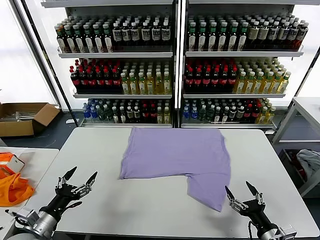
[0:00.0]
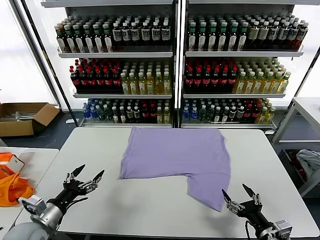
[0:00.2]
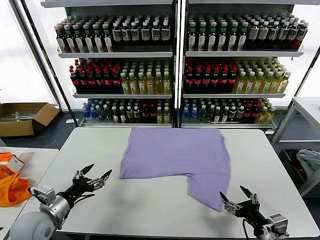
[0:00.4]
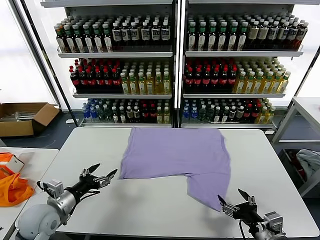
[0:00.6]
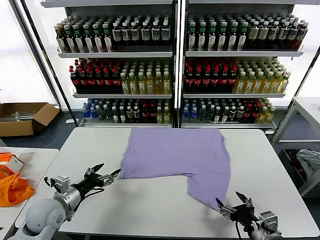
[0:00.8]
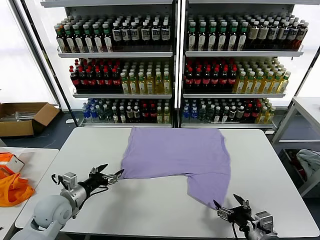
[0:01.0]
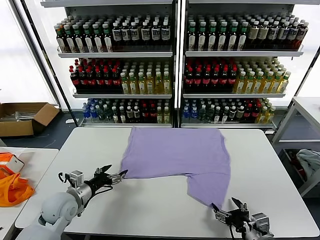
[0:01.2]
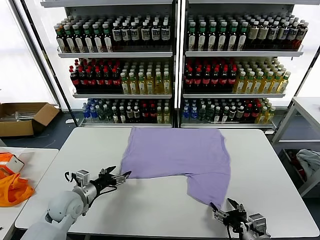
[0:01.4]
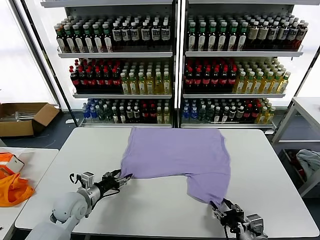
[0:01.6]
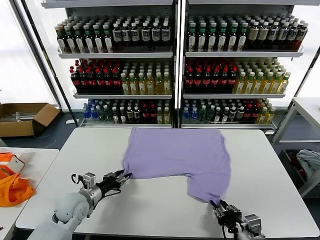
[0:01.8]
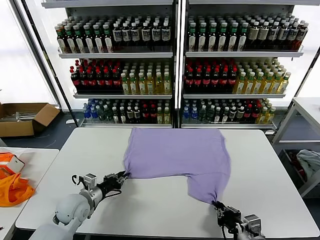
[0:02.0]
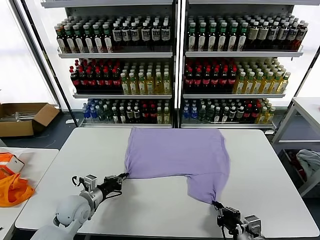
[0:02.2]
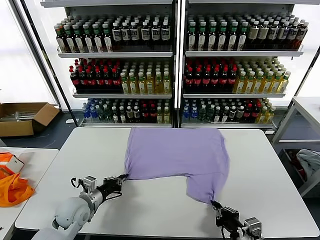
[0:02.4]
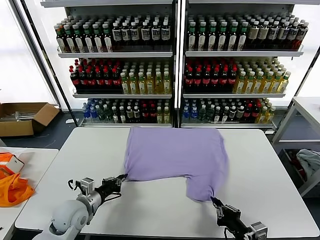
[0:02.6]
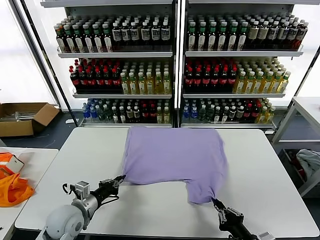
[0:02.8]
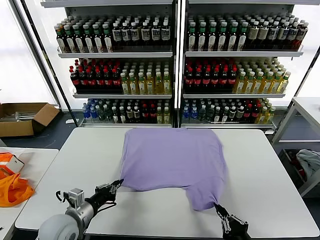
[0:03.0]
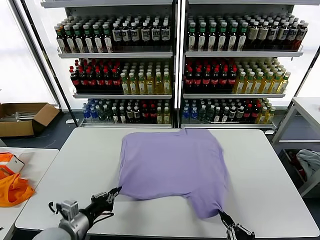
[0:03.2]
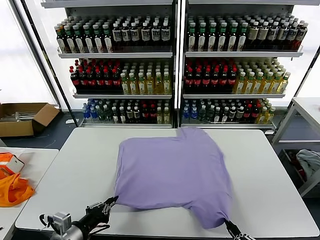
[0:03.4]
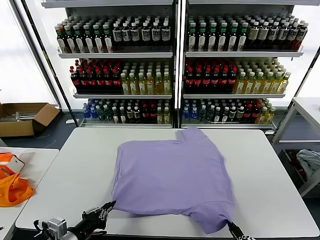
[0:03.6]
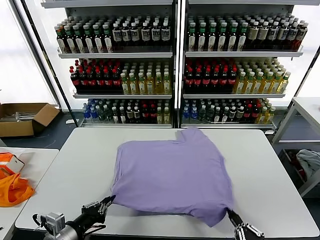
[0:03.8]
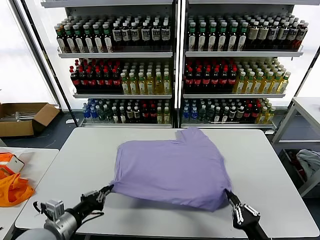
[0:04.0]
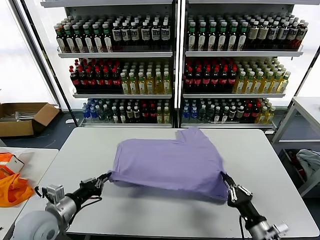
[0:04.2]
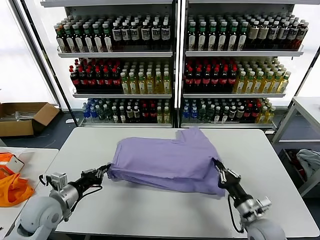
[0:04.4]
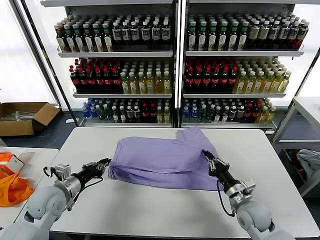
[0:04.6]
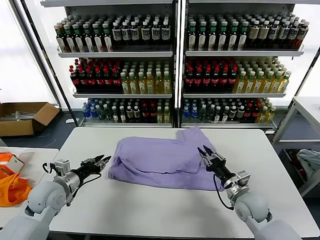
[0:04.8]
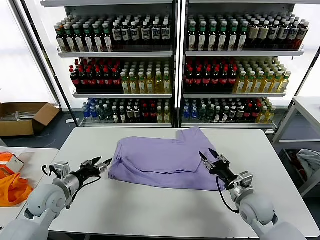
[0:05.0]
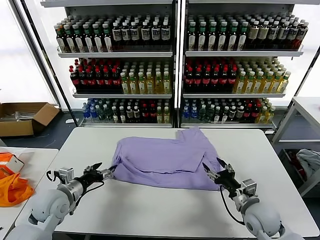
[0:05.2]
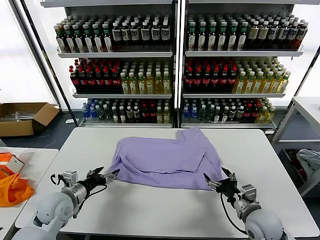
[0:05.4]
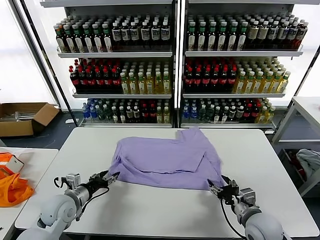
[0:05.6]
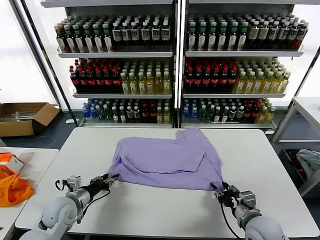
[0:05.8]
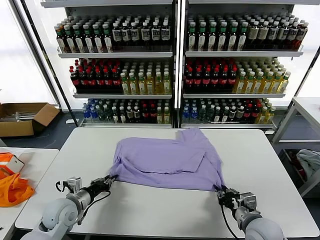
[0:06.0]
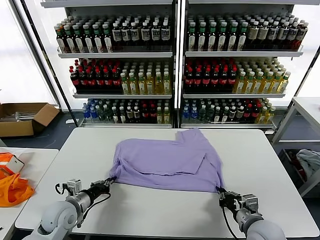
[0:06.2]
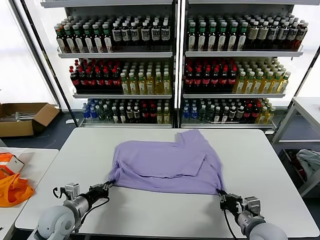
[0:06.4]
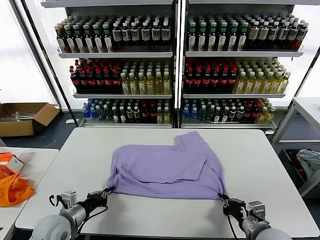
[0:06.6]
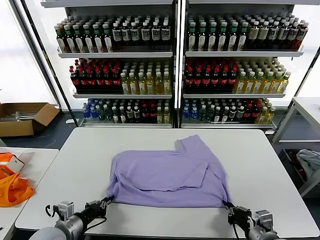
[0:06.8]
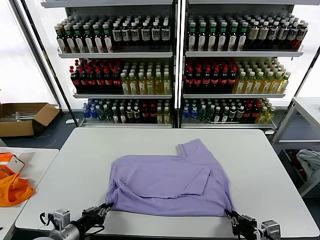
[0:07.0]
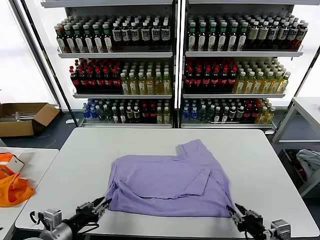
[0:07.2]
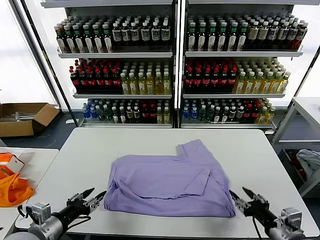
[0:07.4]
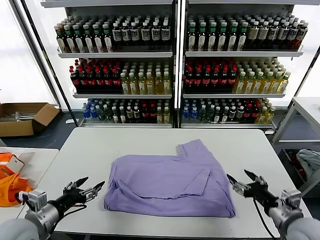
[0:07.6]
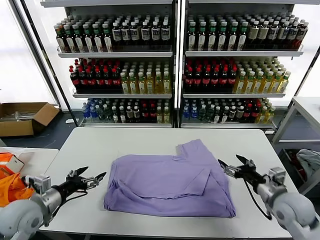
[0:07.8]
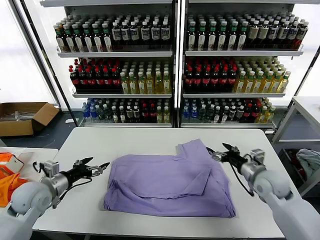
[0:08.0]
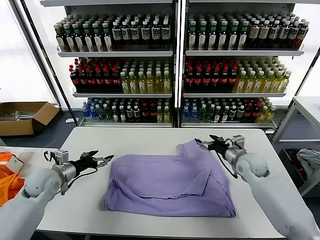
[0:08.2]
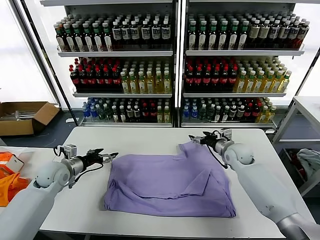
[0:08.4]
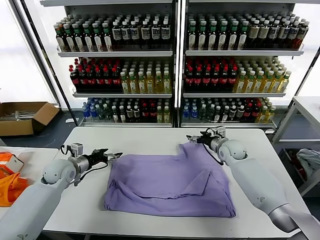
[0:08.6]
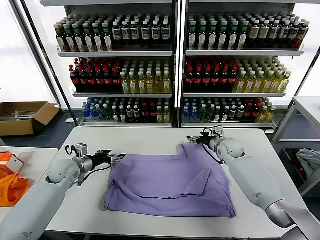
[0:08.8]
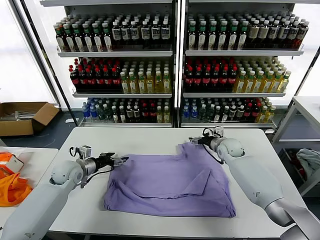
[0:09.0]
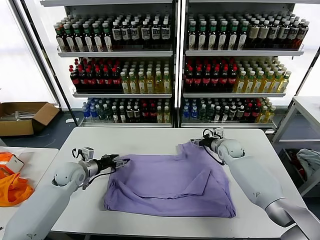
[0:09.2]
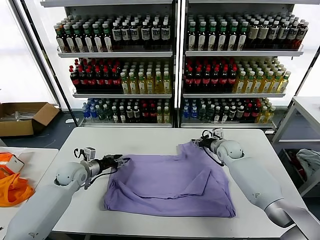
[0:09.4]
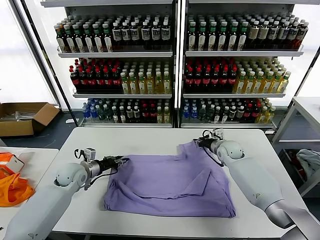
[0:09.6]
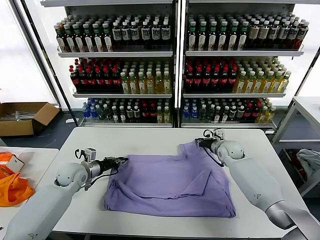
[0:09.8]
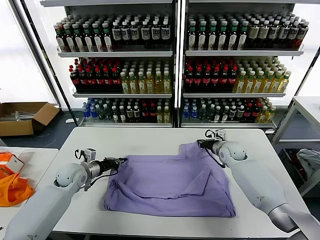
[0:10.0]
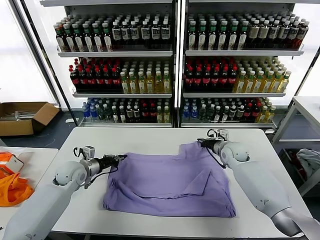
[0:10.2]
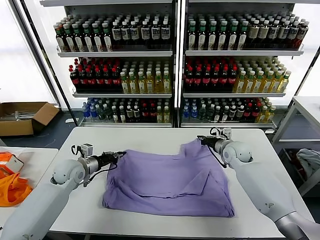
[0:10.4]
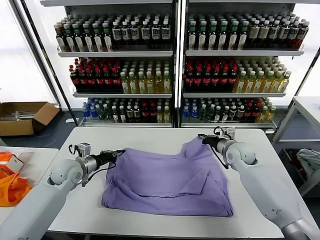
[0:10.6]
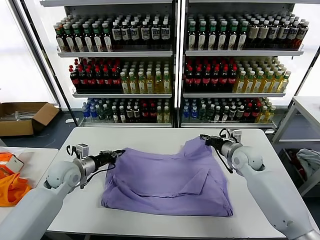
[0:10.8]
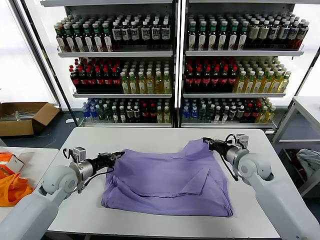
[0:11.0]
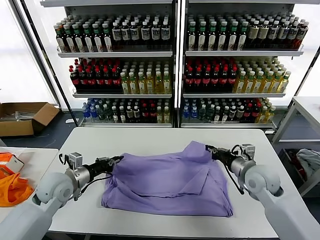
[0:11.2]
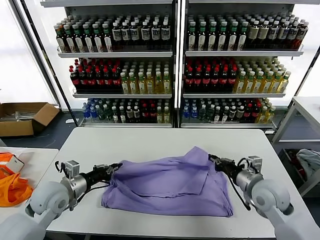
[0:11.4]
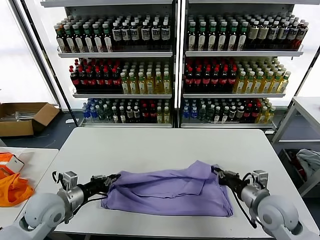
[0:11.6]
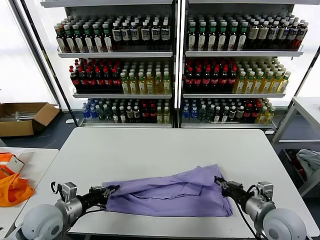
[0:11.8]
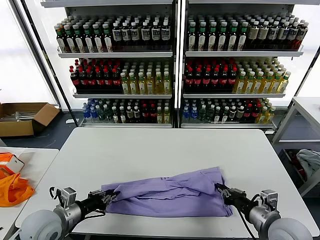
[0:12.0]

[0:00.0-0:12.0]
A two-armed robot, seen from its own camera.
Task of the whole recording: fold and organize the clothes.
Step, 0.0 to 2.2 s: use both grippers simultaneously to clamp the lower edge of the clothing fabric.
Step, 2.4 to 4.8 s: use both grippers to drag the lower edge of the fabric forward and fold it over the upper edge.
Step, 5.2 to 7.0 s: Drag the clothes downward with both gripper.
Step, 7.4 to 9.8 s: use both grippers simultaneously to clamp the upper edge of the clothing fabric.
1.6 to 3.0 s: Both grippers travel together backward, approximately 10 cm. The right gripper closes. The left gripper closes.
3.0 to 4.4 s: The right gripper goes roughly 20 cm forward. Meanwhile the left gripper travels forward by approximately 5 cm.
4.4 to 6.0 s: The left gripper shifts some 5 cm downward, and opens, then closes again, while the right gripper goes forward and returns, approximately 5 cm each way, and opens, then closes once more.
6.0 to 7.6 s: The right gripper moves to the right and upward, approximately 10 cm, goes backward and returns, about 10 cm each way, and opens. The left gripper is displaced upward and backward by approximately 15 cm, and opens its fingers.
7.6 to 9.0 s: Both grippers move forward, approximately 25 cm.
9.0 to 10.4 s: The right gripper closes its fingers; the left gripper closes.
10.4 to 12.0 s: The right gripper shifts roughly 30 cm backward. The left gripper moves backward, roughly 20 cm.

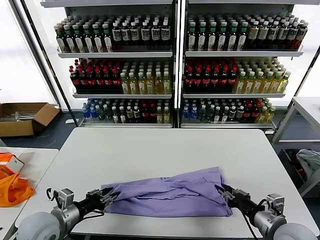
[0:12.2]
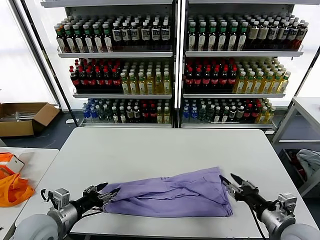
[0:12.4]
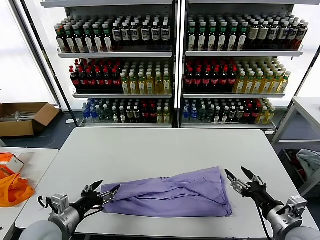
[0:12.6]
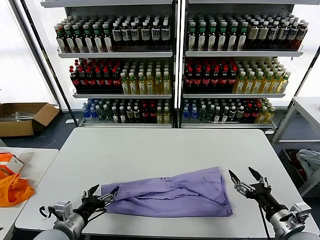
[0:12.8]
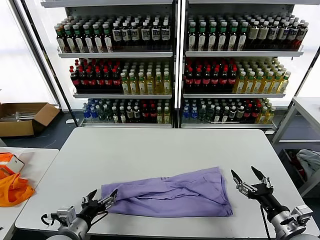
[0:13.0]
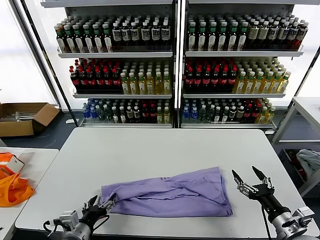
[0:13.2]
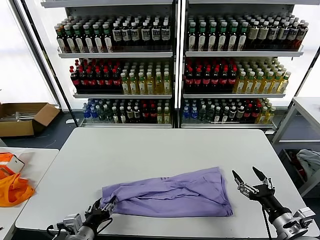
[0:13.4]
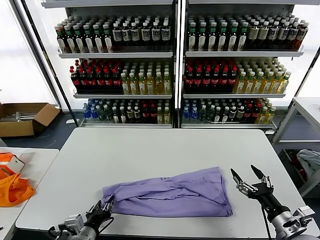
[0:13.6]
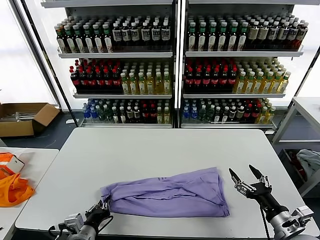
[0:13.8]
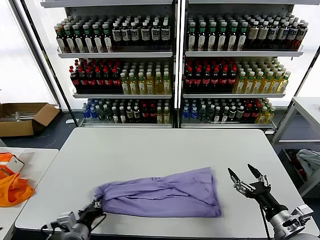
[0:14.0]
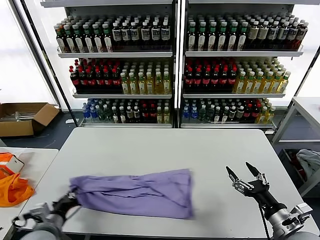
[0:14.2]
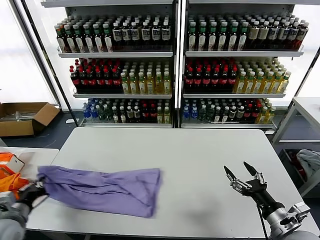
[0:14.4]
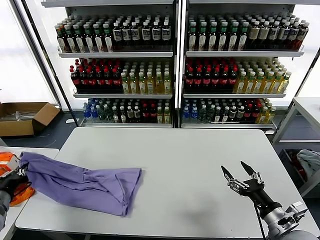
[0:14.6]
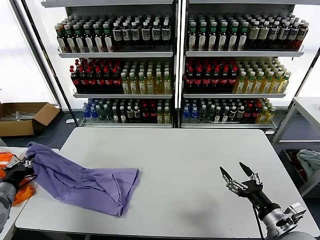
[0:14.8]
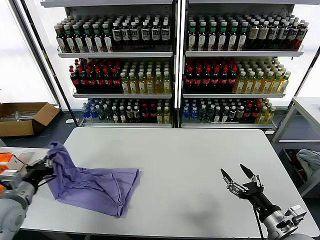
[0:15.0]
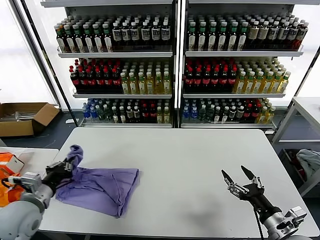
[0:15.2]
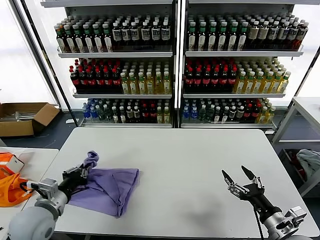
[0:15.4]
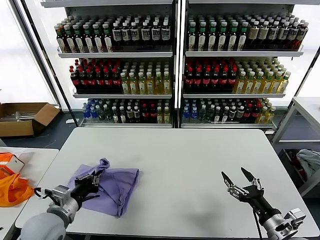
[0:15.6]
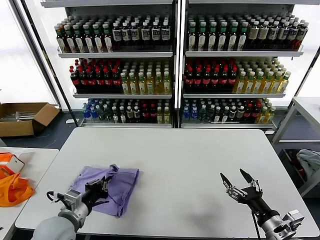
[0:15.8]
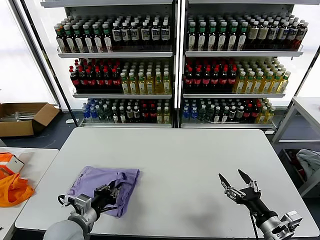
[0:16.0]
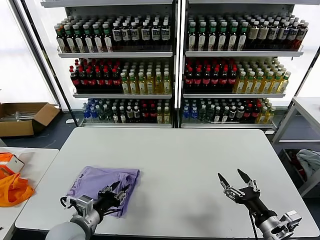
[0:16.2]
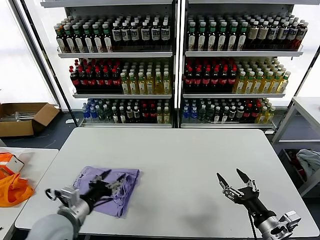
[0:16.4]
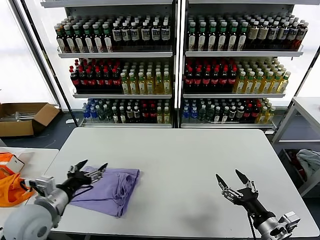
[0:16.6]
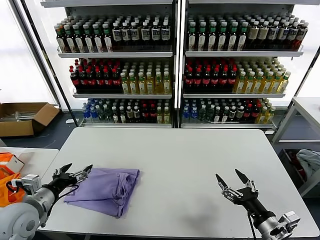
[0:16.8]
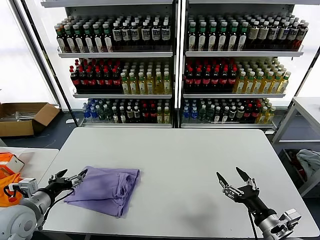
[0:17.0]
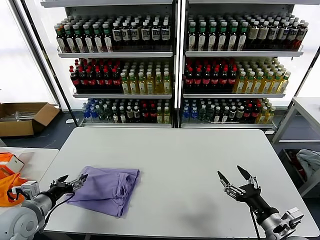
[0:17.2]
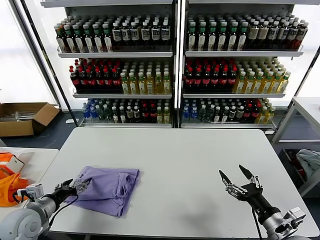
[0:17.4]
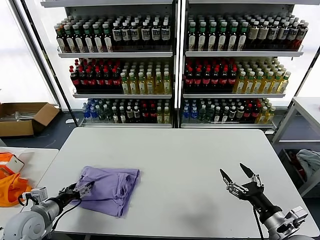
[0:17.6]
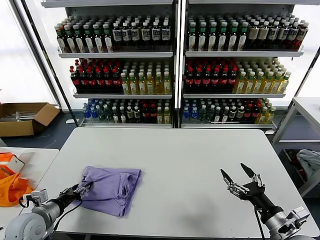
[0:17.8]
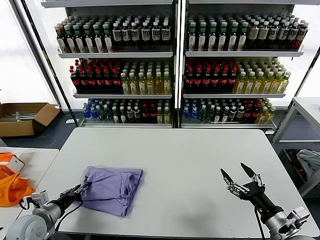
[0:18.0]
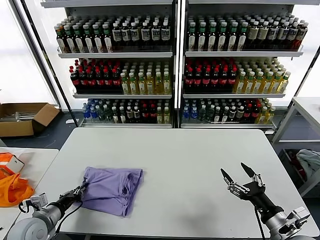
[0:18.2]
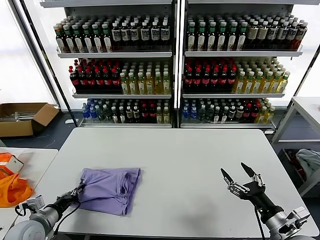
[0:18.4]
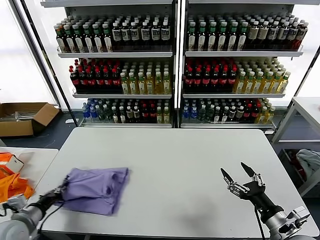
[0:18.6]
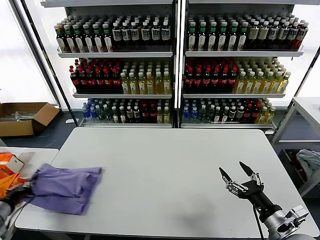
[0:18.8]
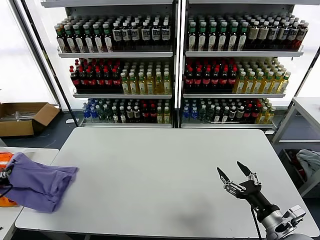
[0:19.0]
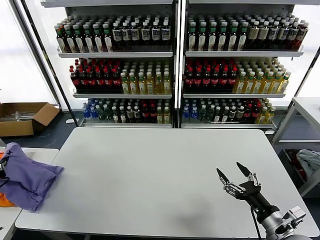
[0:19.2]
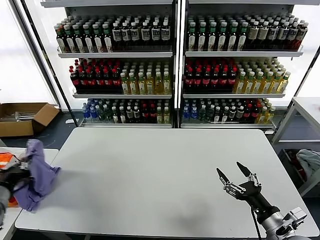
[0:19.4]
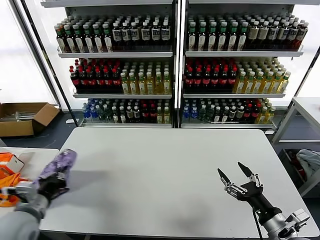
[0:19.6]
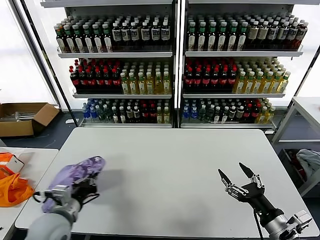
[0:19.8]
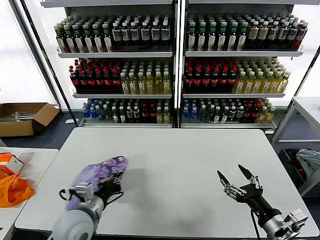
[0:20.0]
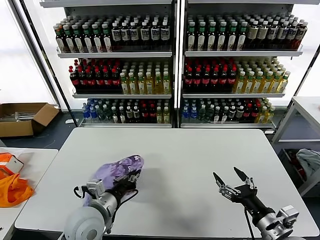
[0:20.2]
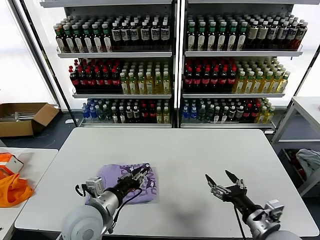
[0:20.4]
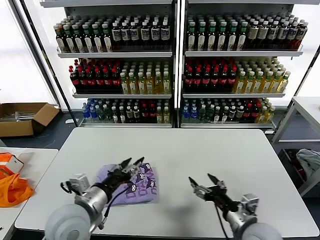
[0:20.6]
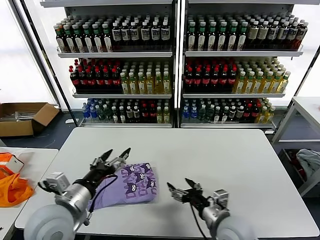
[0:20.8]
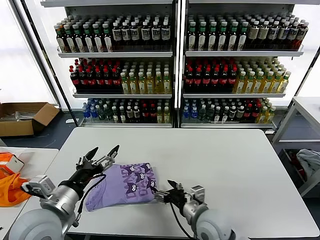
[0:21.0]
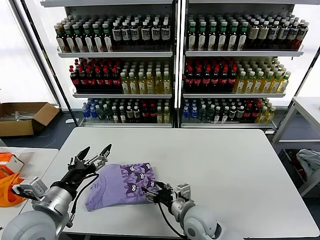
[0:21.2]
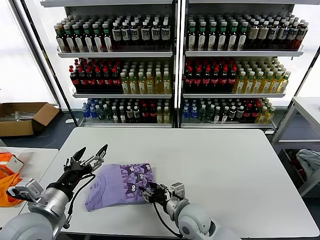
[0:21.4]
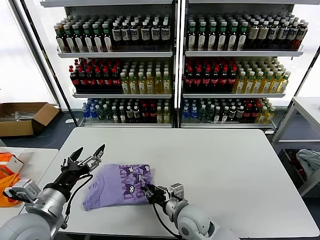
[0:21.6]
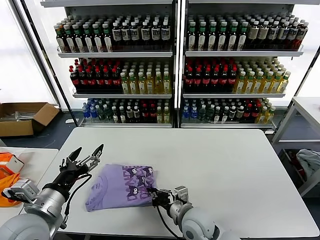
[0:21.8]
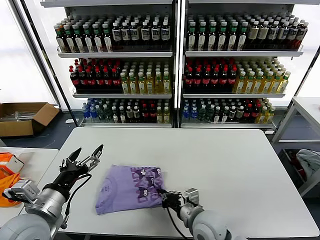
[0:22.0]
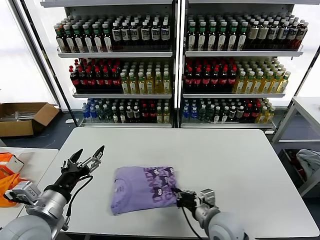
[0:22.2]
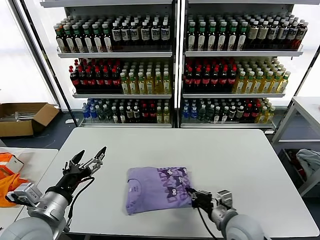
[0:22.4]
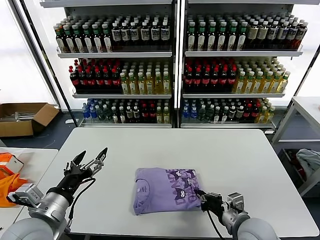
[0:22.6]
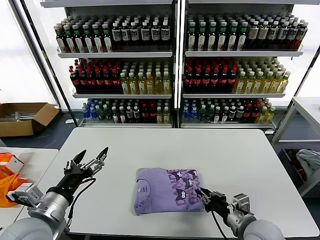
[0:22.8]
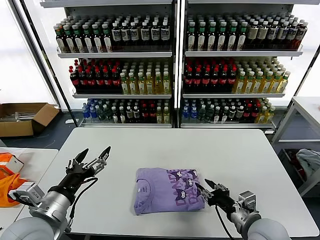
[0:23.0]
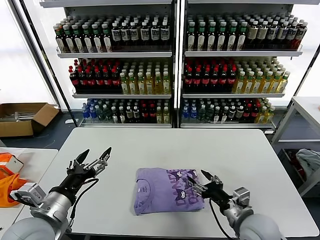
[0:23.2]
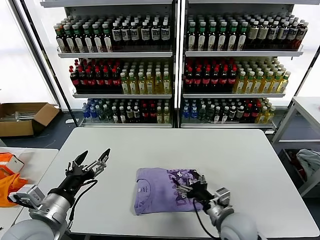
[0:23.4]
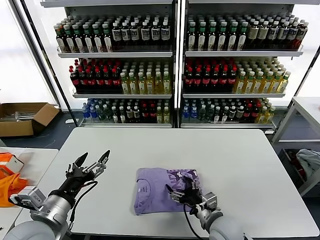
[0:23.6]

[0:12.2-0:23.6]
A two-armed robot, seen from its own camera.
Task of the whole recording: fold and organize the clothes.
Step, 12.4 to 13.8 s: use the left gripper to clamp the left edge of the fabric.
Step, 14.0 to 16.2 s: use the left gripper to drag the left edge of the fabric to the left and folds it over the right edge.
Step, 16.4 to 20.4 s: Flip the folded clothes over with left gripper.
Step, 20.6 to 22.8 s: Drag the clothes to the center of the table.
12.2 to 13.6 s: The left gripper moves to the right, backward and downward, some 10 cm, and opens, then closes again. Meanwhile the right gripper moves roughly 5 cm, and opens up.
13.6 to 15.0 s: The left gripper shifts roughly 20 cm to the left, upward and forward, and closes.
15.0 to 16.4 s: The left gripper travels to the right by some 15 cm, and opens up.
16.4 to 17.8 s: The left gripper travels to the left and downward by about 15 cm.
17.8 to 19.4 s: The left gripper is displaced upward and to the left by some 15 cm, and closes up.
19.4 to 20.8 s: The right gripper travels to the left and forward by about 15 cm, while the left gripper goes approximately 20 cm to the right, and opens up.
20.8 to 22.2 s: The left gripper ends up approximately 5 cm from where it was, while the right gripper reaches some 10 cm to the left, then returns, and closes.
22.2 to 23.6 s: The right gripper goes to the right and returns, roughly 10 cm each way, and opens.
